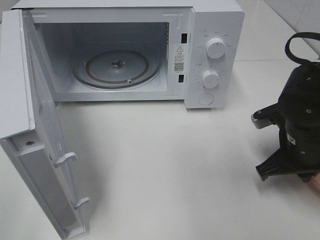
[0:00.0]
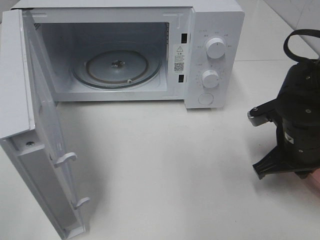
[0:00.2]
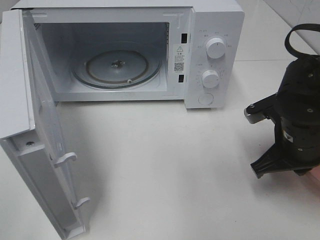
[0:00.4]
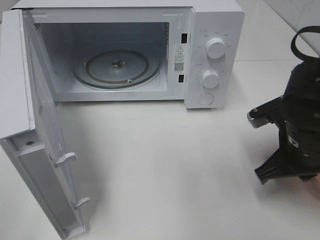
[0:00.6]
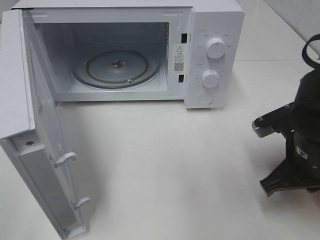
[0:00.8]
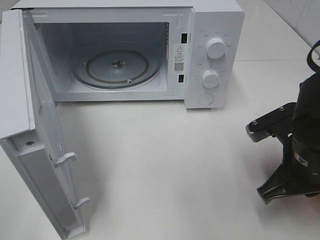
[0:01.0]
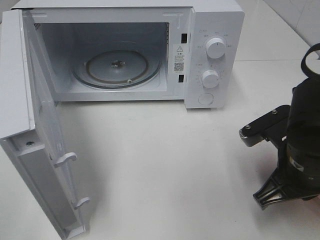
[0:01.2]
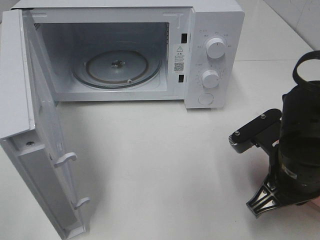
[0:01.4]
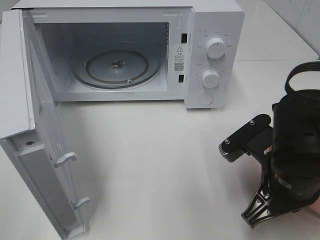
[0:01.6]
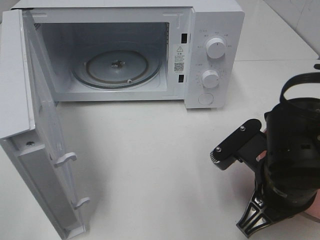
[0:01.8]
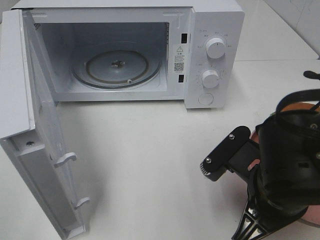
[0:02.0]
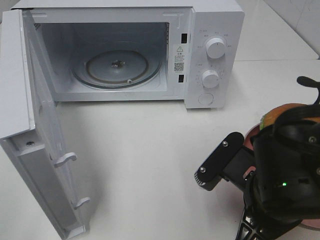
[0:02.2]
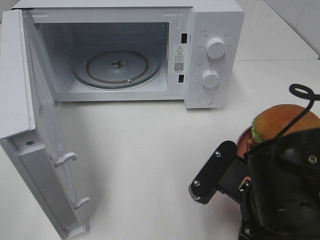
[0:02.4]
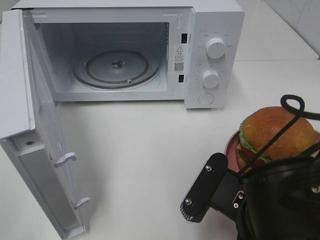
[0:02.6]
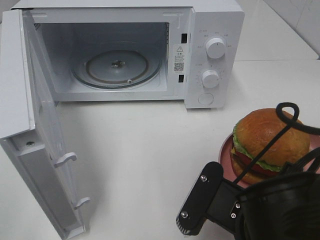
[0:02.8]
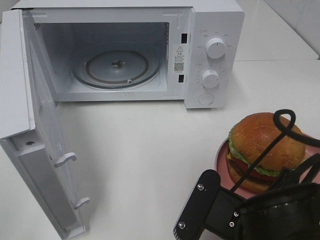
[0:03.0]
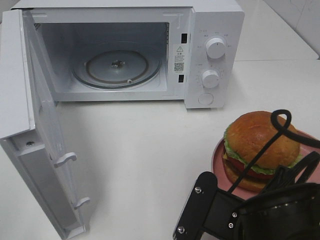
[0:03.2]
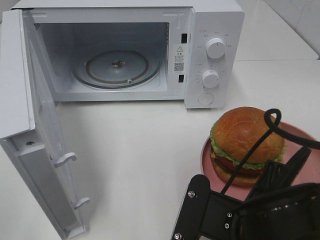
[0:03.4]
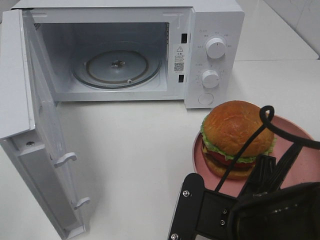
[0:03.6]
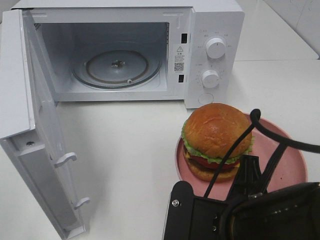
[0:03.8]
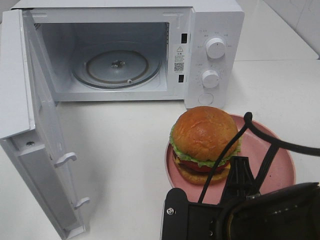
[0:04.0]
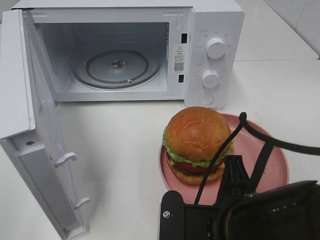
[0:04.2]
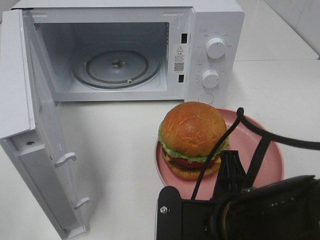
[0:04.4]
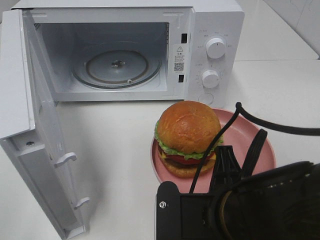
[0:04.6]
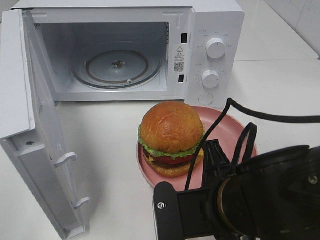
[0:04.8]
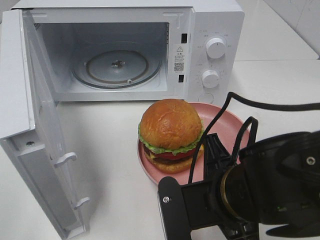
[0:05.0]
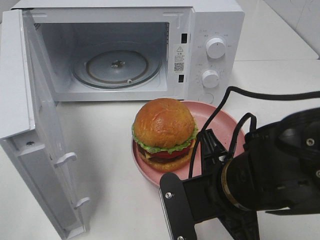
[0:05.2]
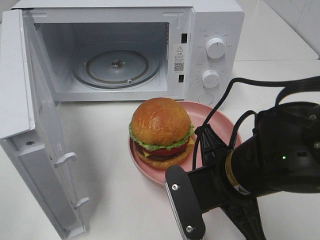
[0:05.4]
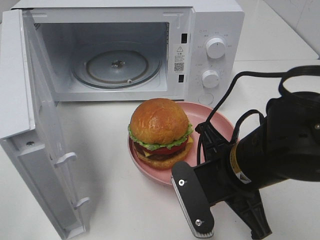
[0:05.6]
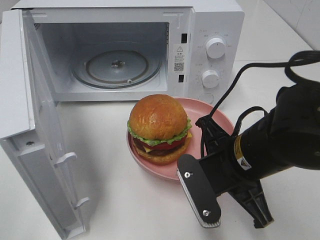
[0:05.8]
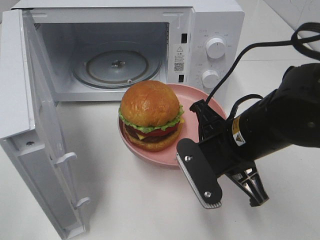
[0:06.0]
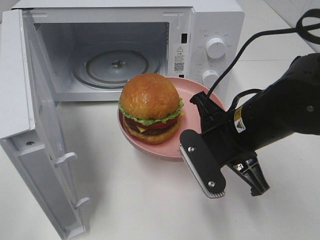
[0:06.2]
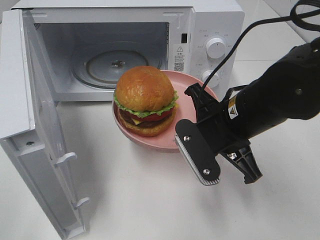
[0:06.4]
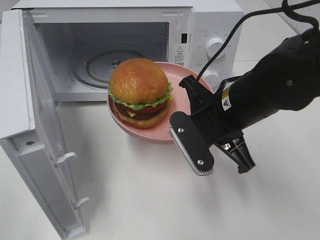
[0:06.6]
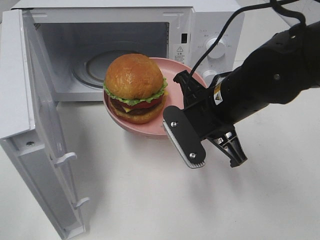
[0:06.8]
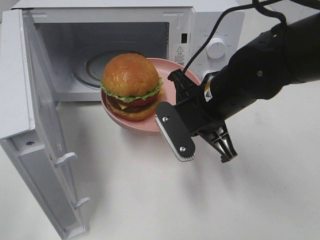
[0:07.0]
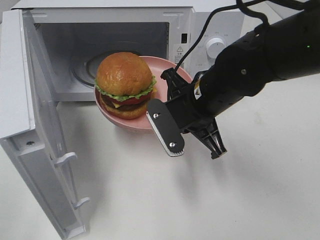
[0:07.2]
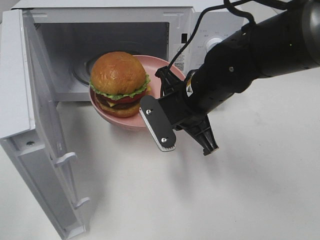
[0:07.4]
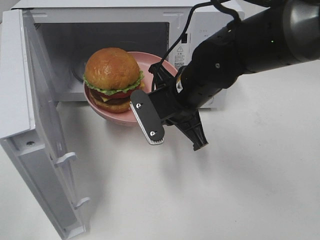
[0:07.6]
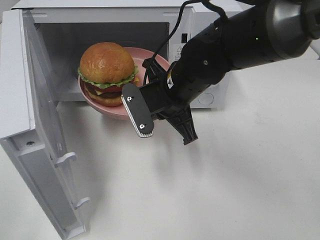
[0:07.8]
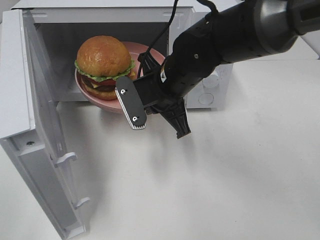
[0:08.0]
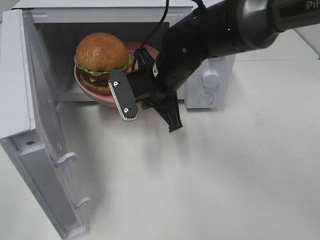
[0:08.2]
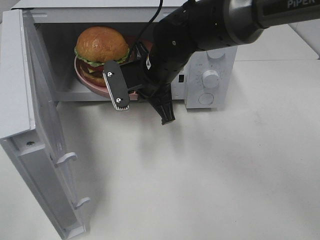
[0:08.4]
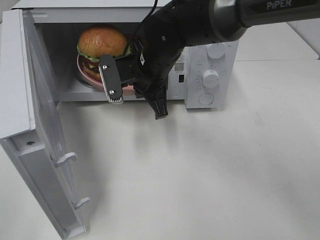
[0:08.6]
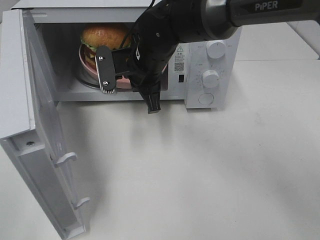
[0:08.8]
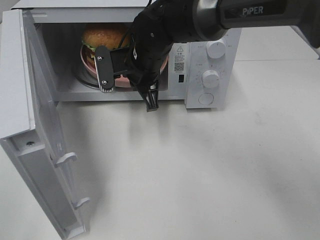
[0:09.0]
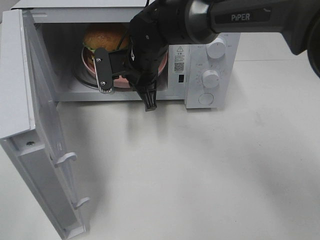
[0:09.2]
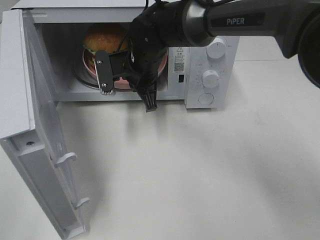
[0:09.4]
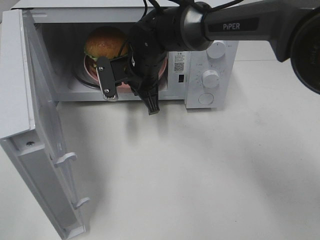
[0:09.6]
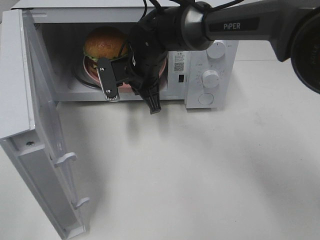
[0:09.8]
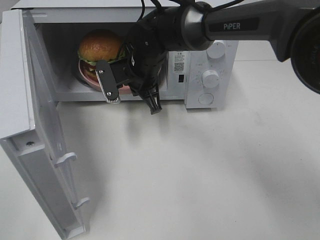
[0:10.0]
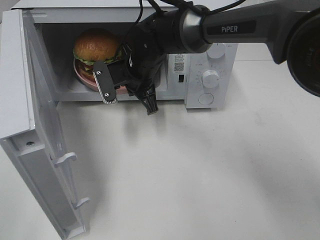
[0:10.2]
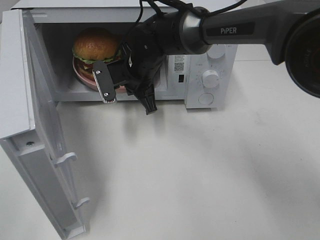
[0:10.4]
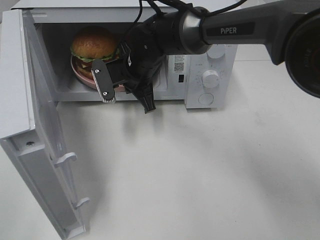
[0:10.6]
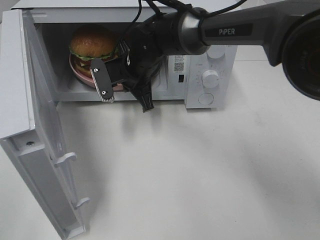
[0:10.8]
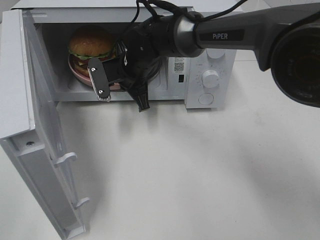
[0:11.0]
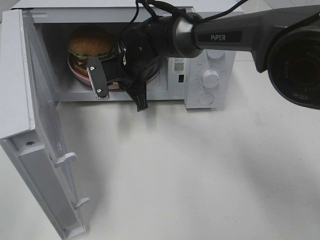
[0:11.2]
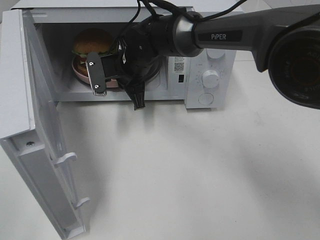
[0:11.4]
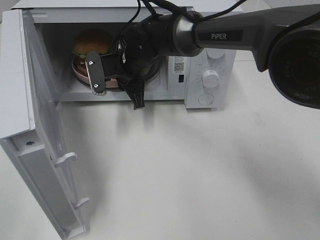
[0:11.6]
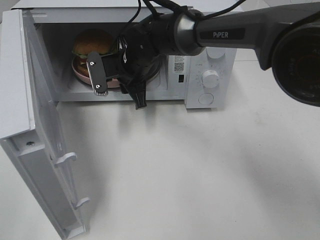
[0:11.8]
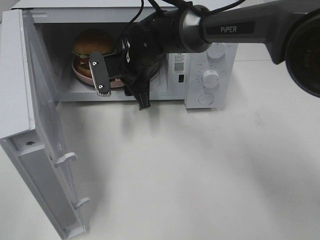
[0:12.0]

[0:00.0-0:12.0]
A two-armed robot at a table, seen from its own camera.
Task of the whole recording: Heat the burger.
Step, 0:00.0 to 0:11.6: Right hand: place the plate in the microwave.
0:00.0 to 0:01.6: The right gripper moves backward and to the left, approximately 10 cm.
0:01.6 to 0:03.0: The right gripper travels backward and to the left by some 10 cm.
0:04.4 to 0:06.0: The right gripper goes approximately 10 cm forward.
0:06.0 to 0:07.6: The right gripper is displaced forward and to the left by some 10 cm.
0:07.6 to 0:09.0: The right gripper moves forward and to the left, some 10 cm.
0:09.0 to 0:10.4: The grippers make only small movements.
0:10.4 to 0:12.0: The right gripper opens up.

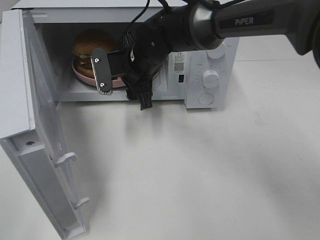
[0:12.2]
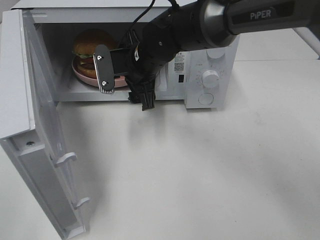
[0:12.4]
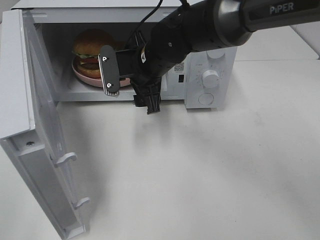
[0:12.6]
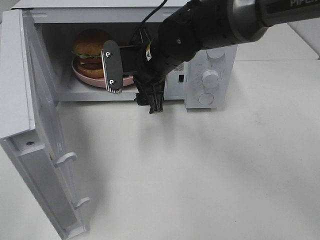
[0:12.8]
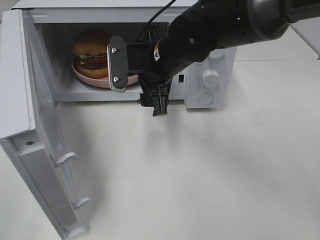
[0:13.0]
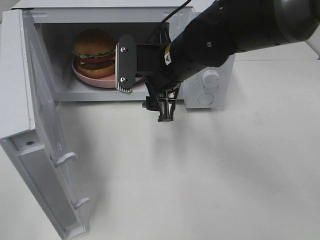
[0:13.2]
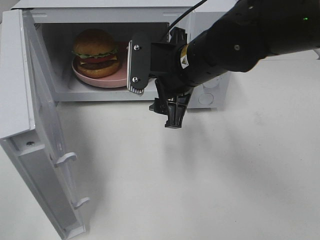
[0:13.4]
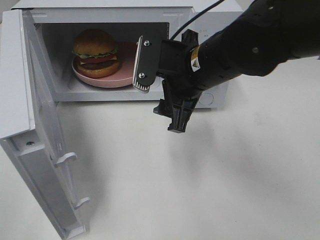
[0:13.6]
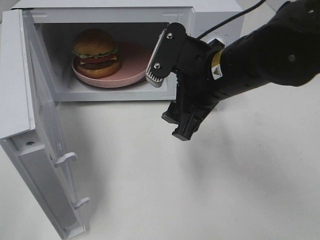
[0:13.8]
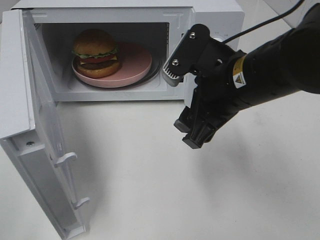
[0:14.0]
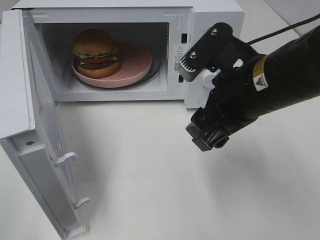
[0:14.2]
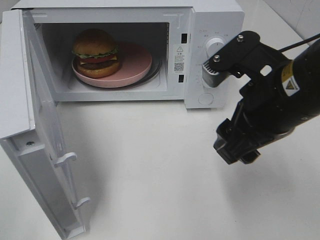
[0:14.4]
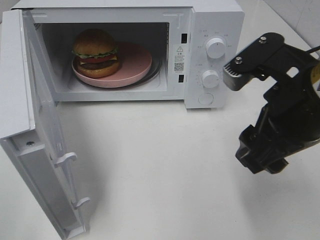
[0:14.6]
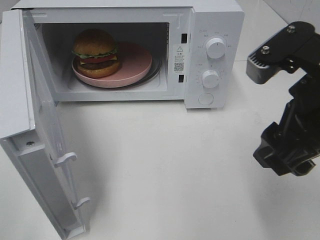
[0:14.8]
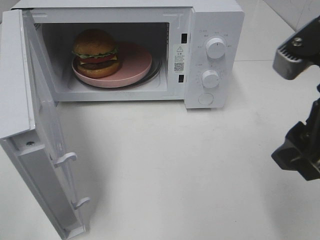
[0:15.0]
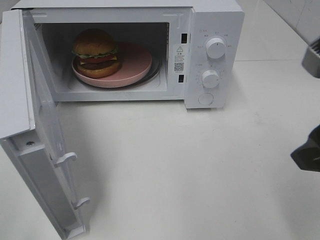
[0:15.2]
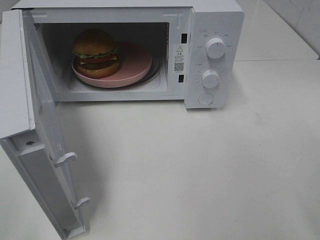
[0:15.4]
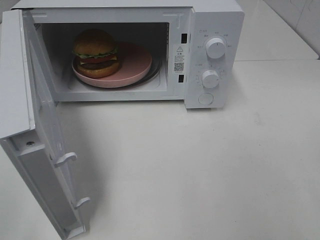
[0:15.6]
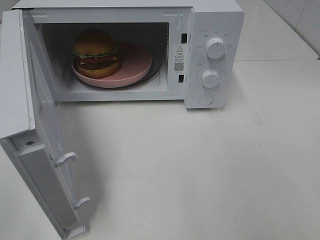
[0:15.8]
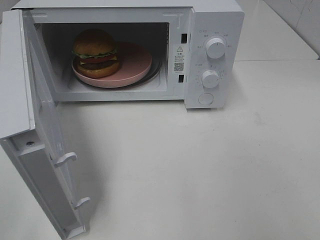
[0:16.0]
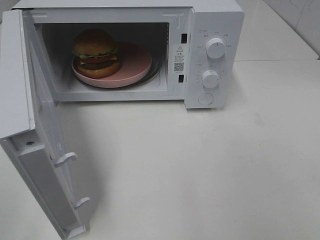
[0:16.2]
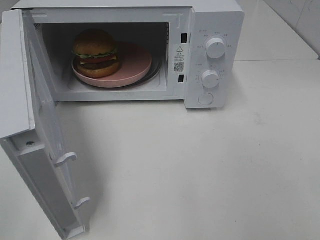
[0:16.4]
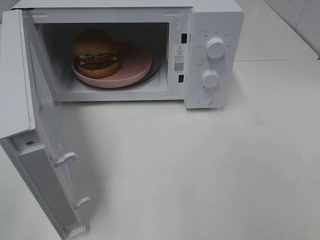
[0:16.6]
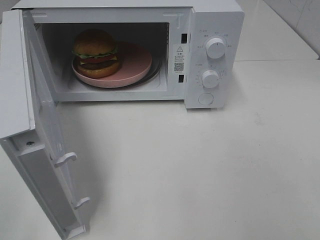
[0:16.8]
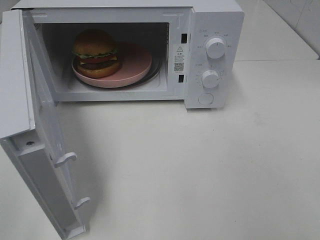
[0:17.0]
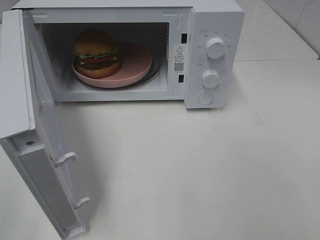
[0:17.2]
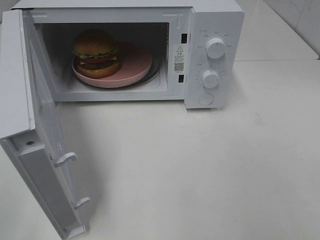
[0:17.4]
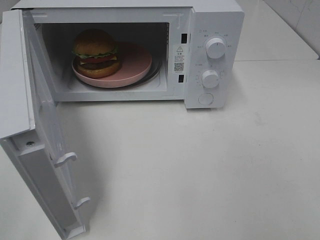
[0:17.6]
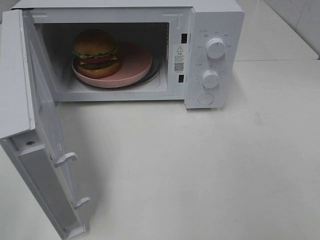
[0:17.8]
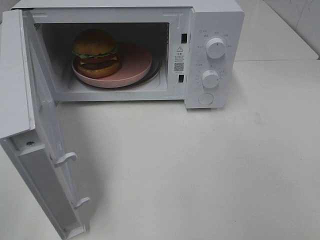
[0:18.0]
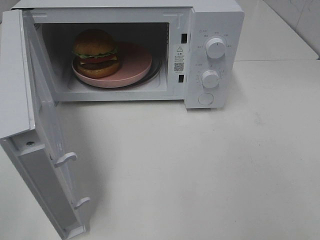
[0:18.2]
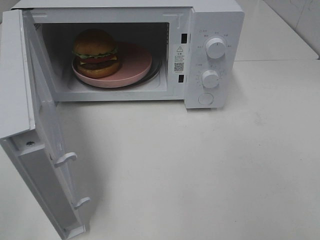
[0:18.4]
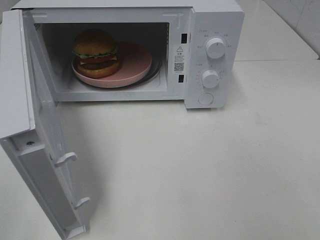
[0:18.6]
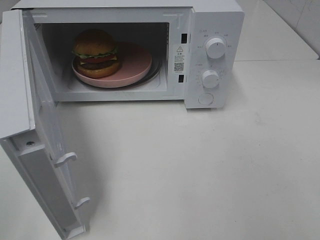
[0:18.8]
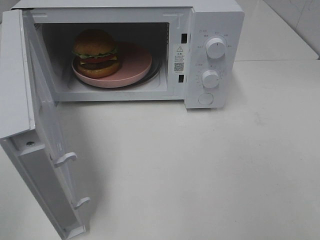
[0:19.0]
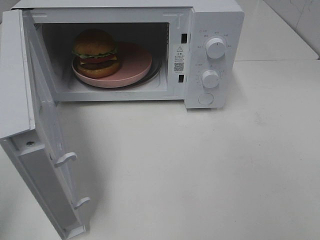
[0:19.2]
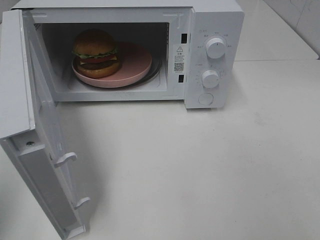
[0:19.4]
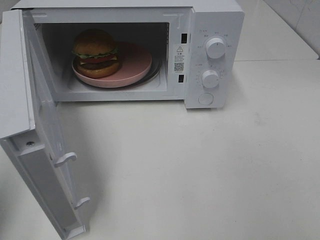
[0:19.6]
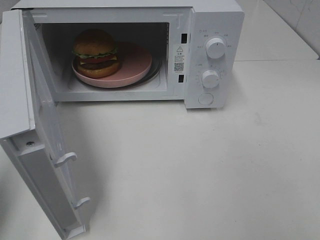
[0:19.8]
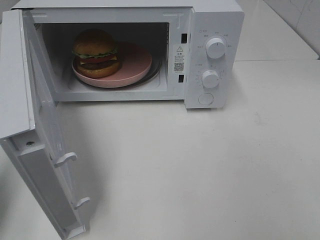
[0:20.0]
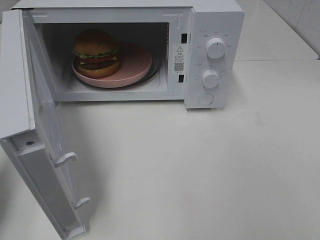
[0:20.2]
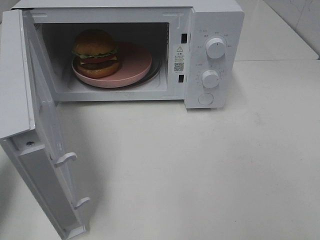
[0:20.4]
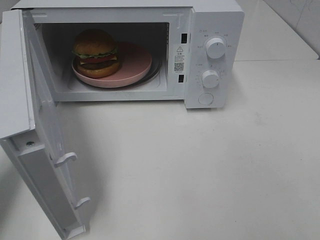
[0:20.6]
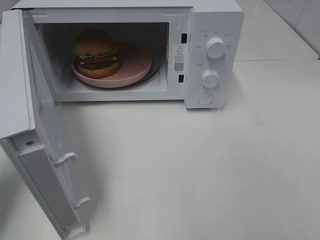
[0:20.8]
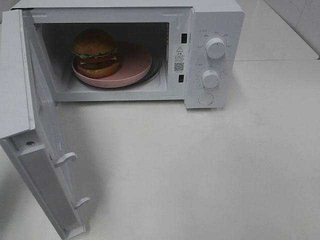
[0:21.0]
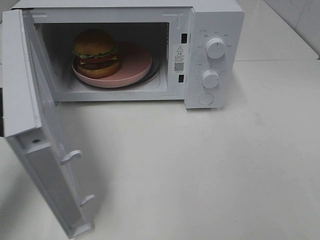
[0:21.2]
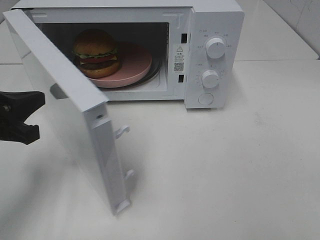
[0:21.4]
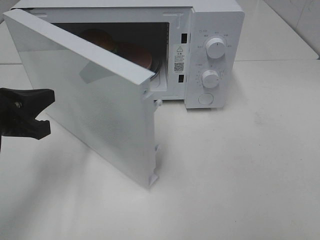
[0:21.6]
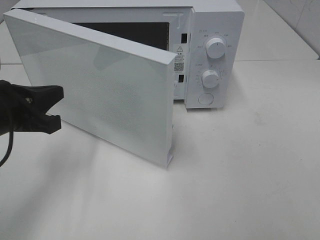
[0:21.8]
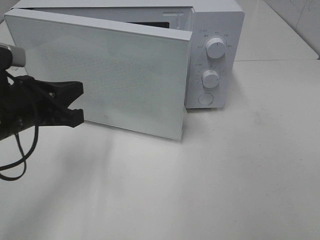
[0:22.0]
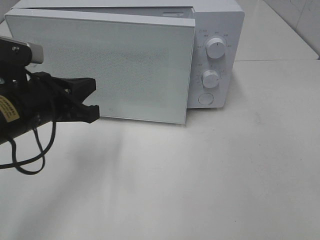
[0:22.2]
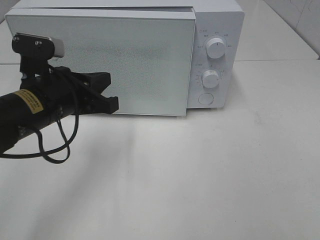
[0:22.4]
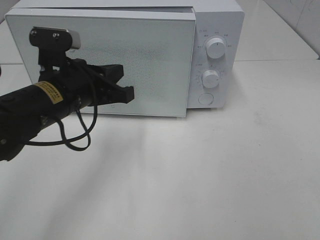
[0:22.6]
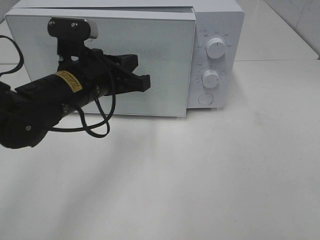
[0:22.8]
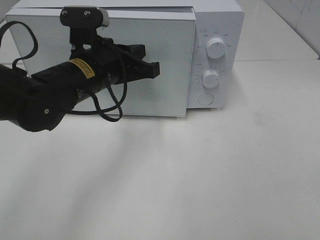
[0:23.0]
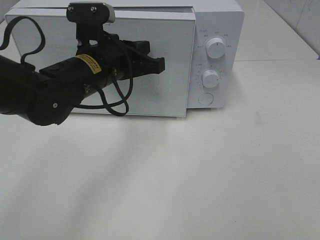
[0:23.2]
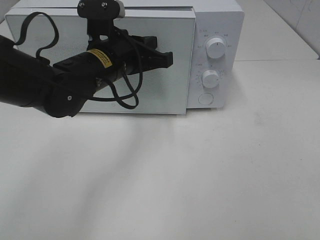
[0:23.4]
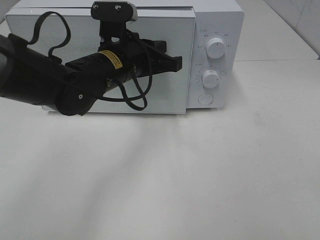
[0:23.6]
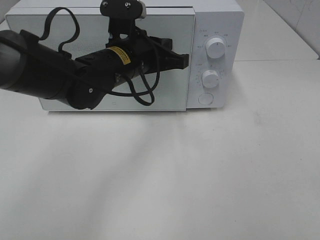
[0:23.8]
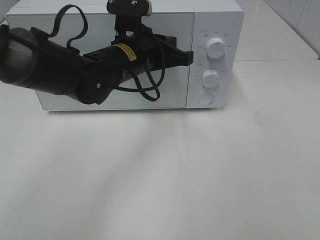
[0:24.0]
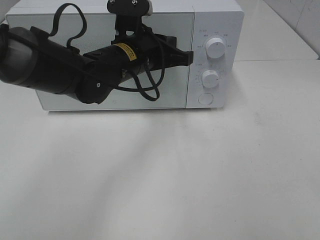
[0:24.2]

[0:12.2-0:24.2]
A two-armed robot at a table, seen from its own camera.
Task of the whole recording: Heat the burger.
0:12.2 to 0:13.8: The right gripper travels backward, to the right and upward by roughly 20 cm.
0:13.8 to 0:15.2: The right gripper is displaced to the right, backward and upward by some 20 cm.
0:15.2 to 0:16.6: The right gripper goes approximately 15 cm backward and to the right.
0:16.6 to 0:18.2: Neither gripper changes place.
0:18.2 to 0:19.8: The left gripper heads forward, covering some 15 cm, and closes.
0:19.8 to 0:21.2: The left gripper is displaced downward, forward and to the right by about 15 cm.
0:21.2 to 0:22.6: The left gripper moves to the right and forward, about 15 cm.
0:22.6 to 0:24.2: The left gripper shifts some 10 cm to the right and forward.
